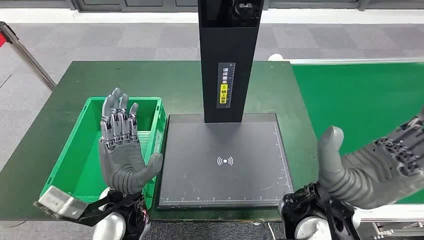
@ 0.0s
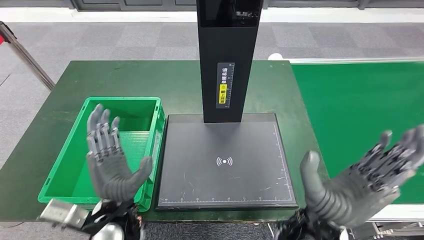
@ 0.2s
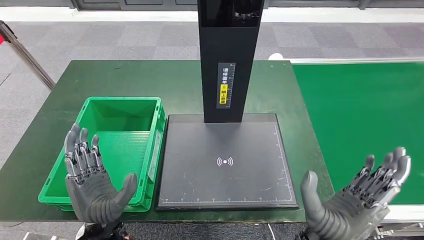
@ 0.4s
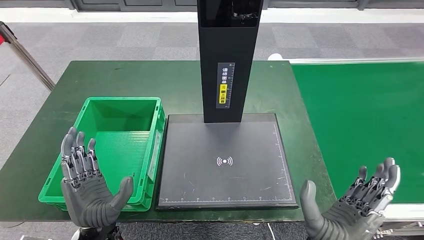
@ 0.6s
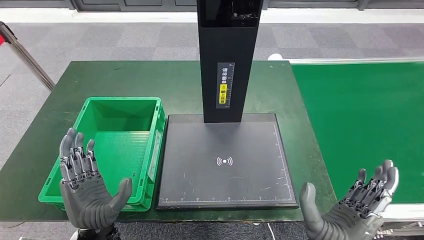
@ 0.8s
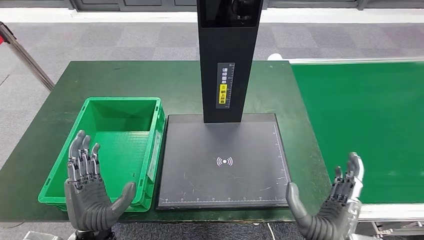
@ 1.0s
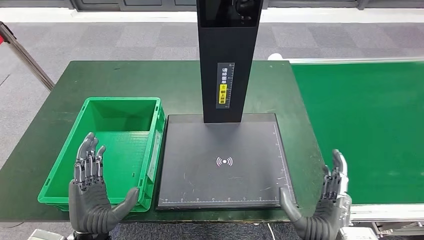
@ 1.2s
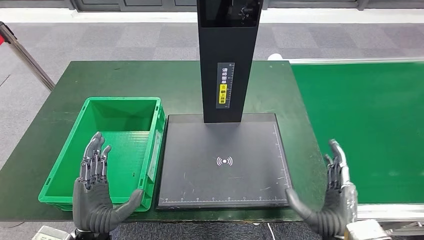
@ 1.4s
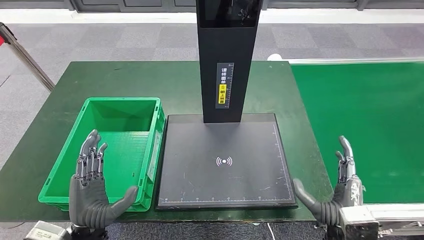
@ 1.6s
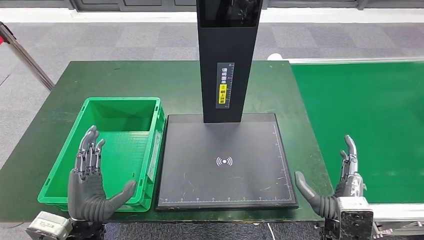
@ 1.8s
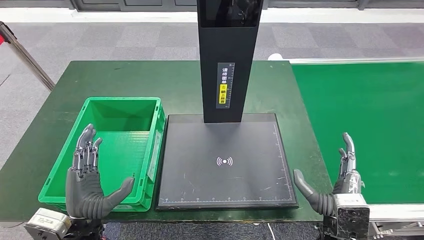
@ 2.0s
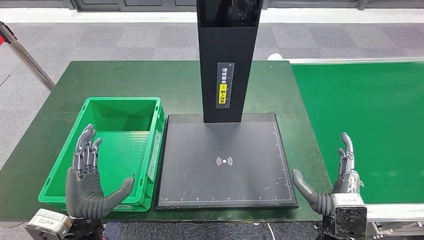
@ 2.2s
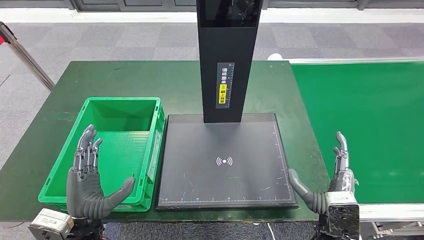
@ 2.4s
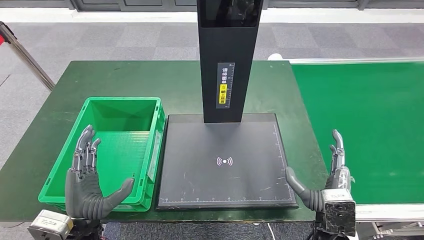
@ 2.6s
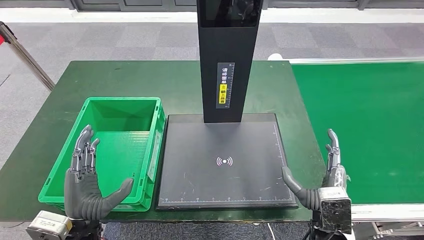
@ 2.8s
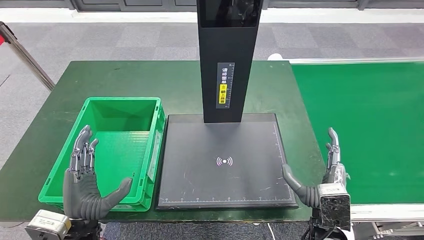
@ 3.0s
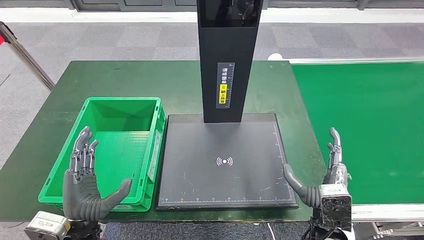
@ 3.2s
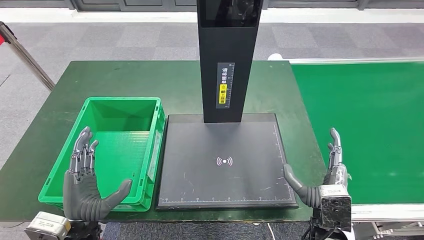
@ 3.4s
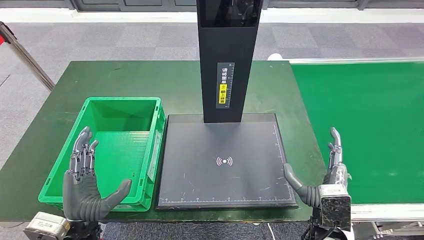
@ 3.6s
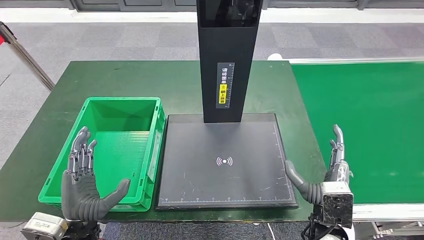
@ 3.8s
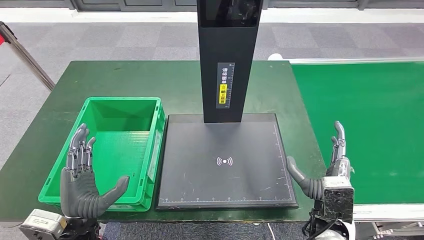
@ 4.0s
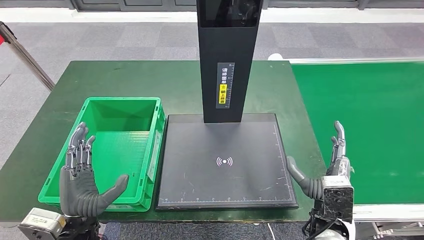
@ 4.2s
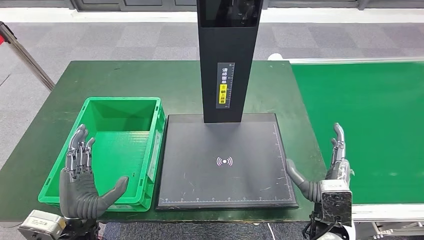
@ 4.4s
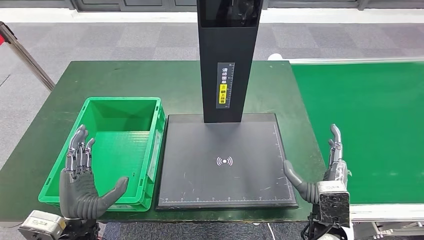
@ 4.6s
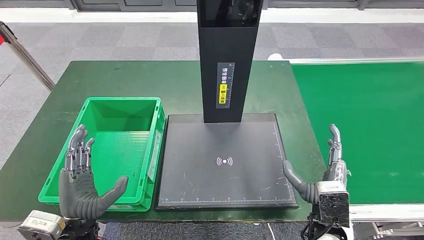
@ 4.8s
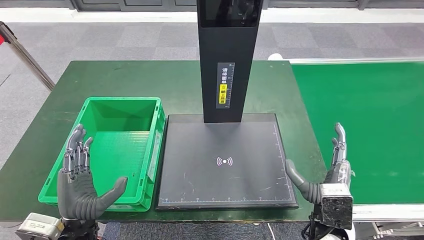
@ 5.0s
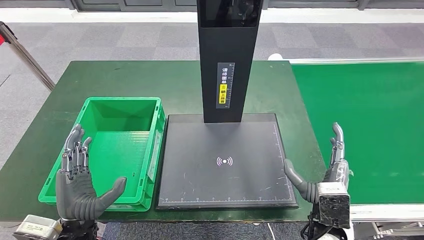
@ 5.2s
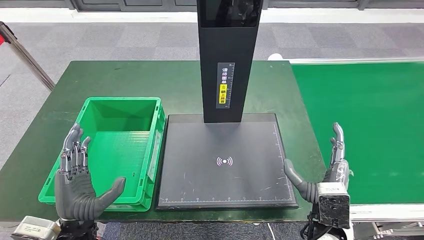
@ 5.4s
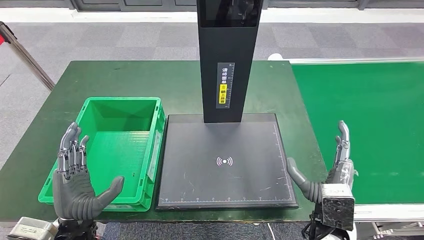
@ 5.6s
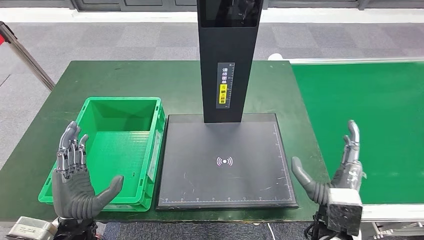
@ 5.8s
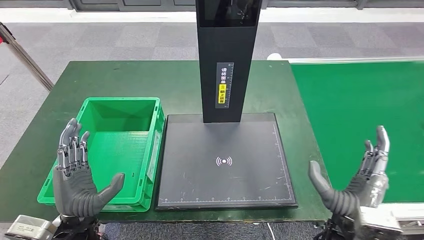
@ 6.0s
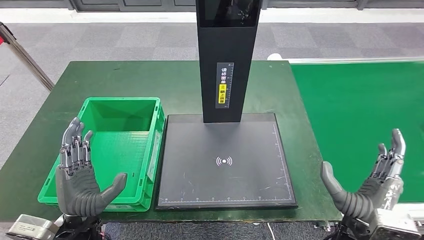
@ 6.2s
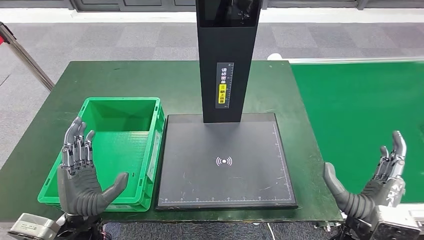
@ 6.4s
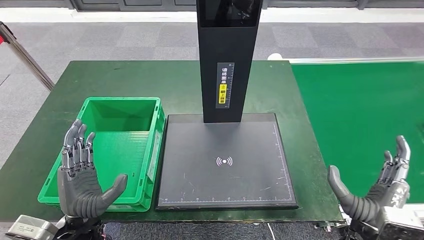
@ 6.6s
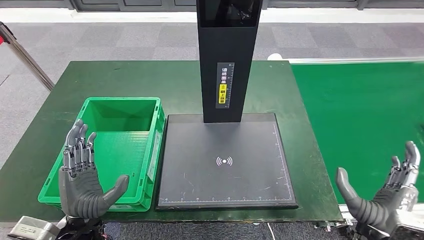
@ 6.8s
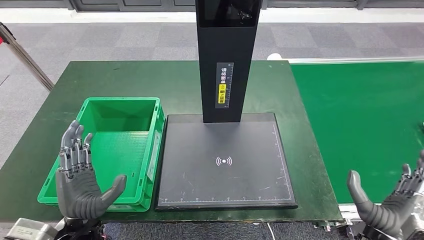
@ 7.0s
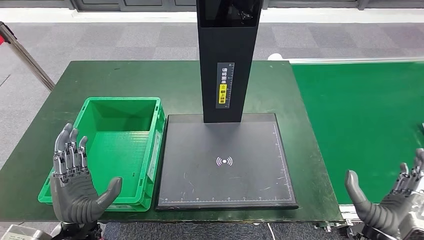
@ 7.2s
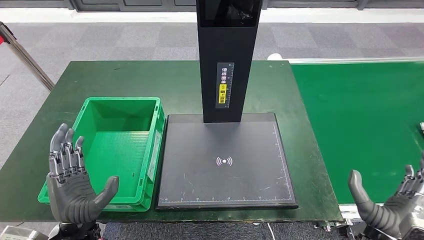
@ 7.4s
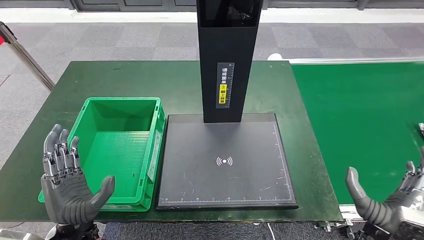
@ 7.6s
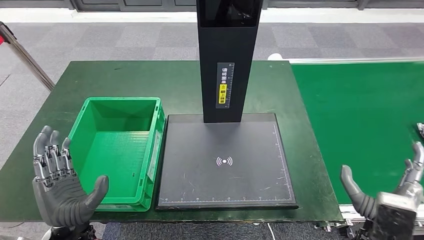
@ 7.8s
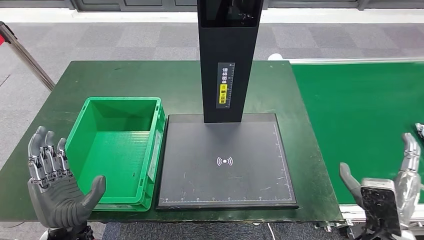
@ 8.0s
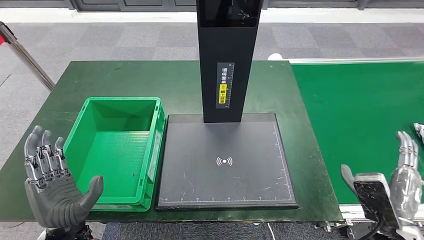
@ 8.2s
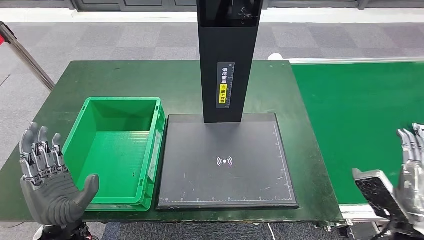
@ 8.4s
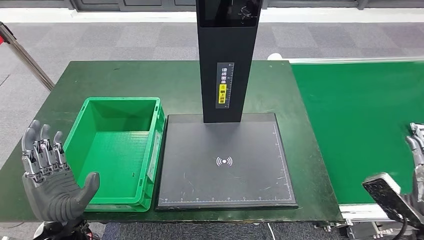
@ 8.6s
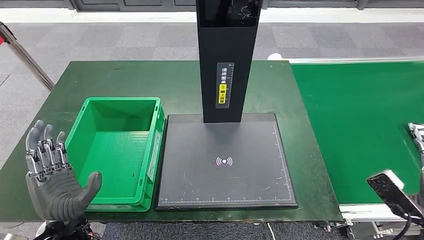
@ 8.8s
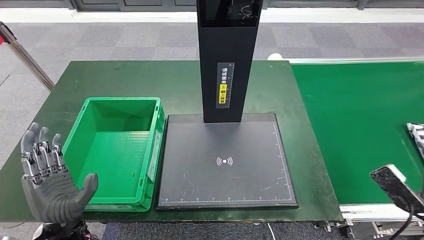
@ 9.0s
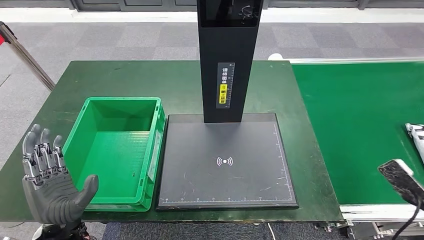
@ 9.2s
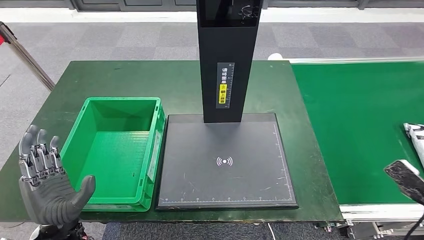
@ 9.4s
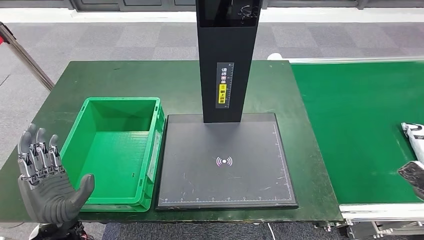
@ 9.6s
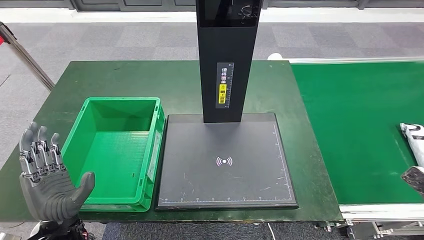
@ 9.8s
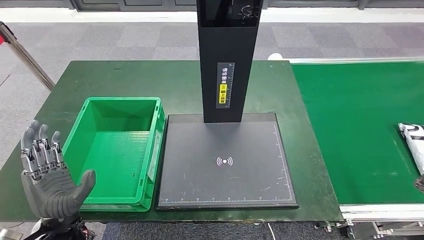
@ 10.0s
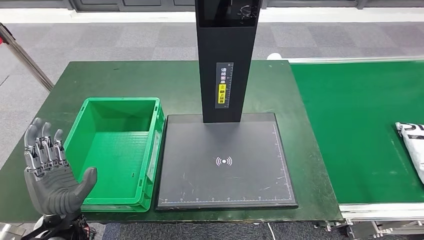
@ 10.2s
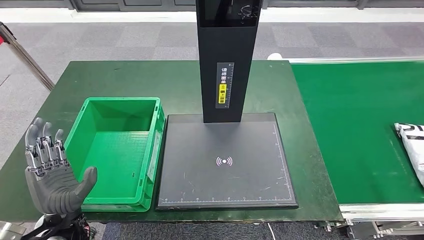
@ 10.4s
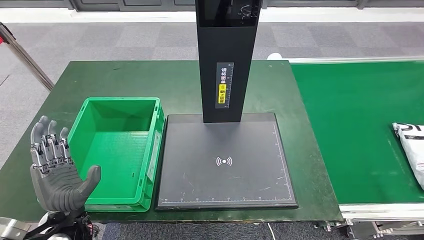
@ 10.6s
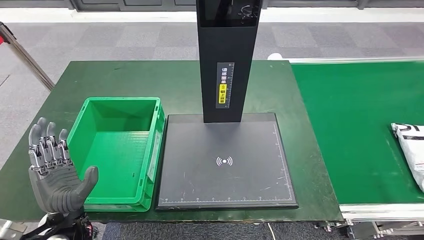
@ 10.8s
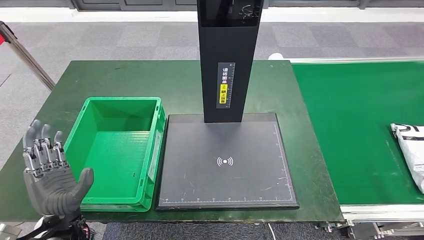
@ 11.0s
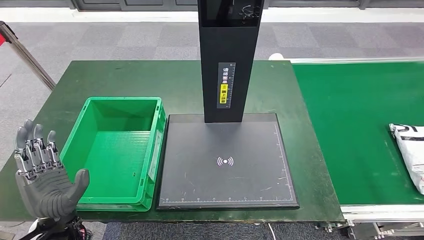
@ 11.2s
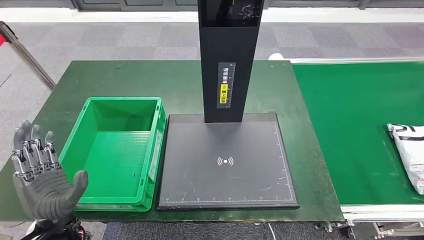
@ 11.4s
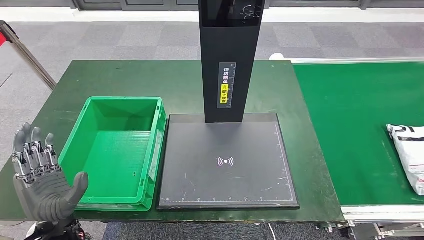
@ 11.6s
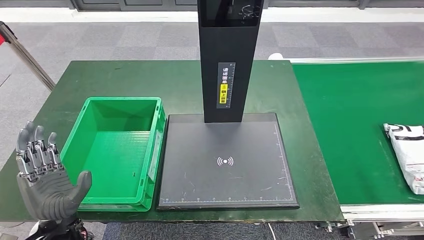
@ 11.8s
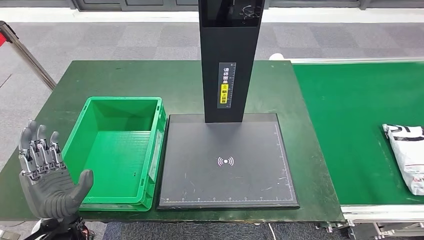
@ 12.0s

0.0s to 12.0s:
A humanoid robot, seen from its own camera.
1.6s to 6.0s: The hands move only a little.
6.0s to 7.6s: The right hand ends up roughly 5 cm from where it was.
7.6s to 9.0s: The right hand travels to the right by about 15 cm.
9.0s to 10.4s: The right hand moves to the right, about 15 cm.
10.4s to 12.0s: There are only small adjustments of the hands.

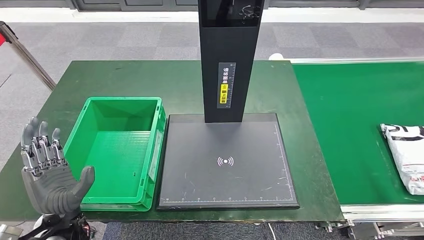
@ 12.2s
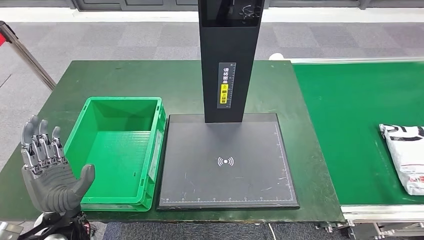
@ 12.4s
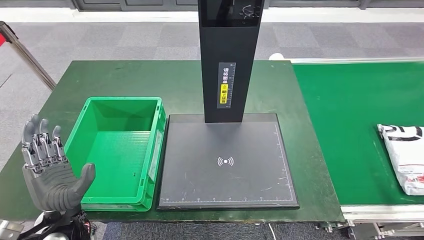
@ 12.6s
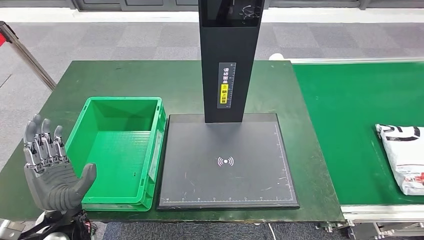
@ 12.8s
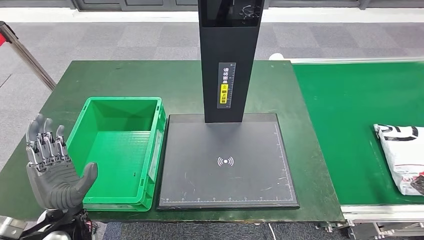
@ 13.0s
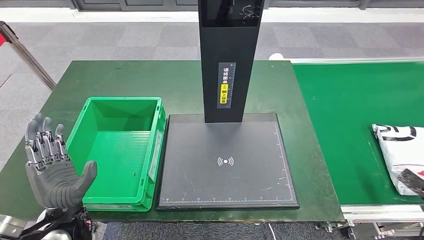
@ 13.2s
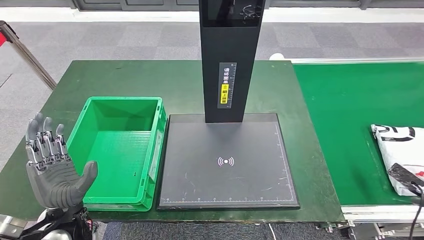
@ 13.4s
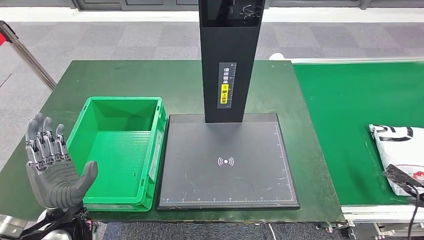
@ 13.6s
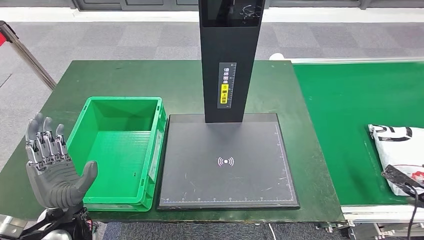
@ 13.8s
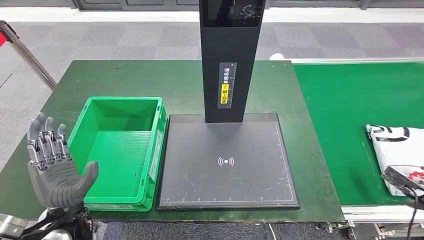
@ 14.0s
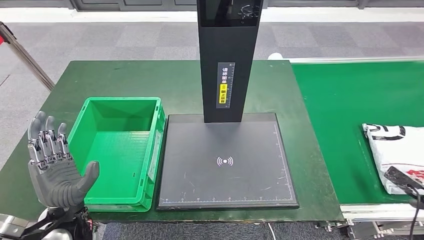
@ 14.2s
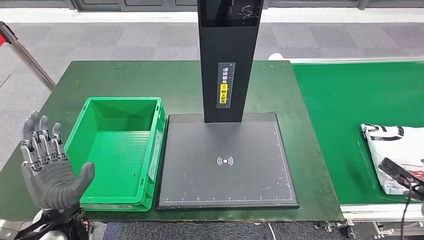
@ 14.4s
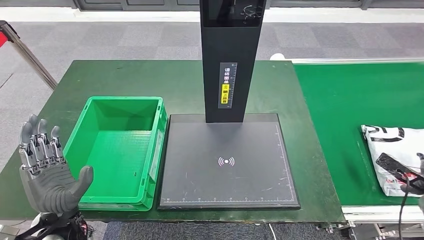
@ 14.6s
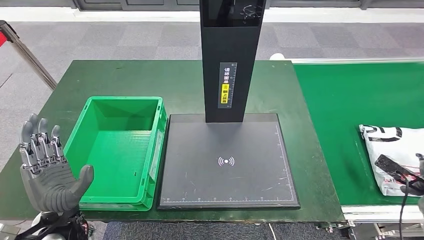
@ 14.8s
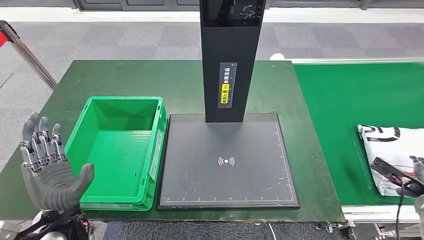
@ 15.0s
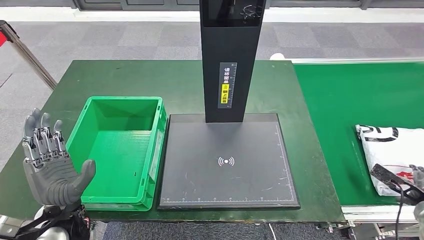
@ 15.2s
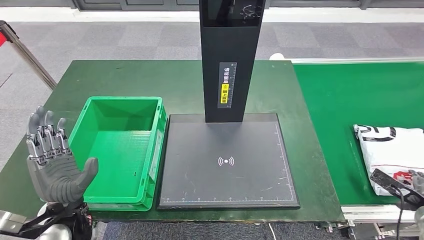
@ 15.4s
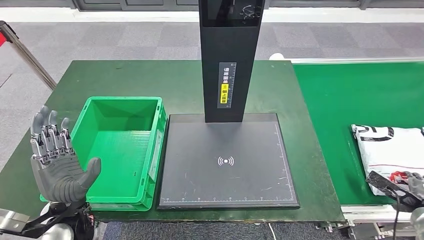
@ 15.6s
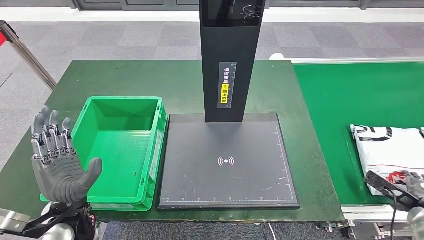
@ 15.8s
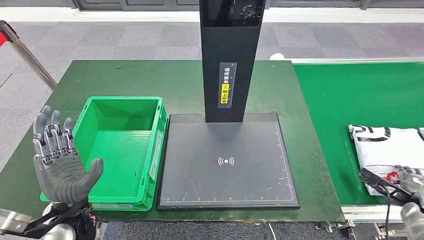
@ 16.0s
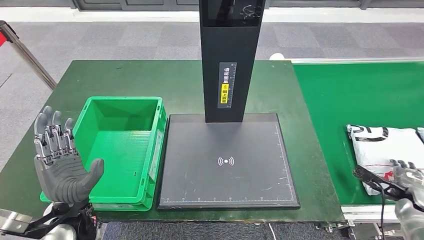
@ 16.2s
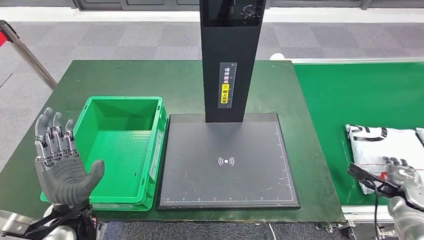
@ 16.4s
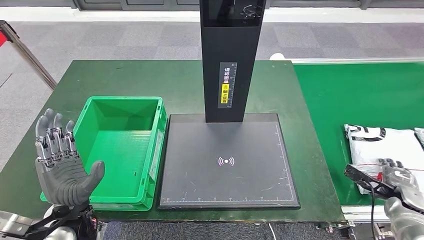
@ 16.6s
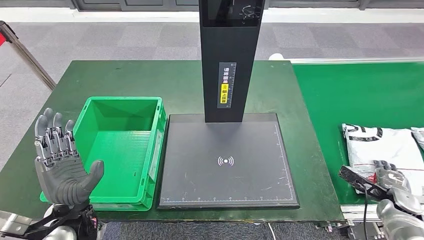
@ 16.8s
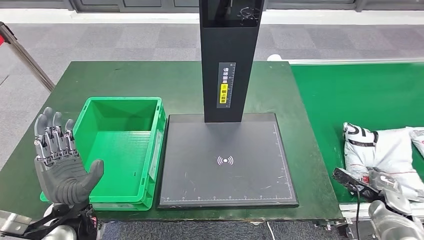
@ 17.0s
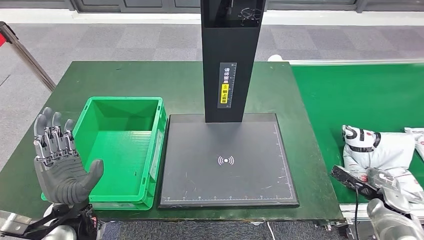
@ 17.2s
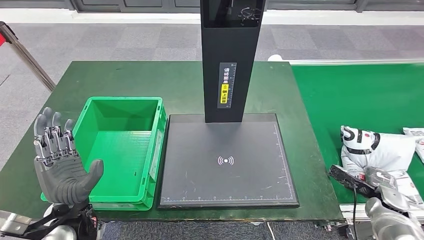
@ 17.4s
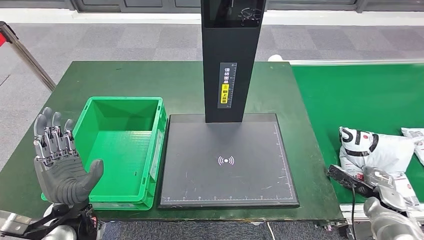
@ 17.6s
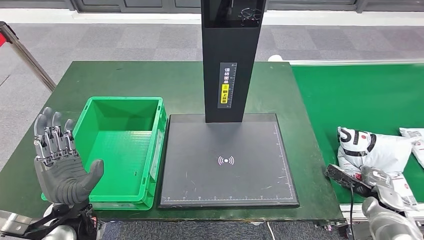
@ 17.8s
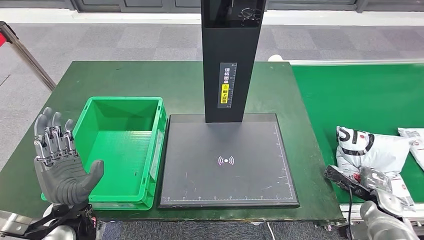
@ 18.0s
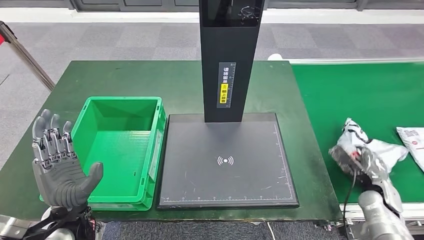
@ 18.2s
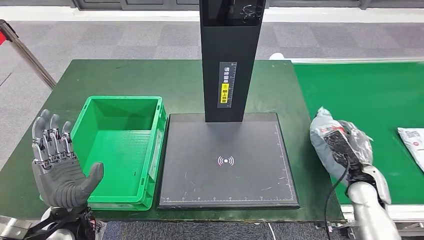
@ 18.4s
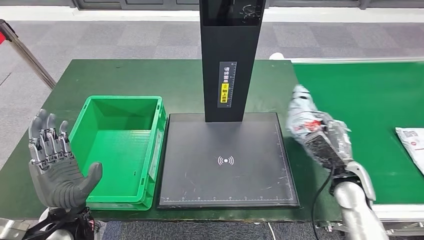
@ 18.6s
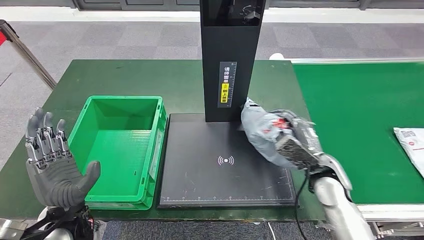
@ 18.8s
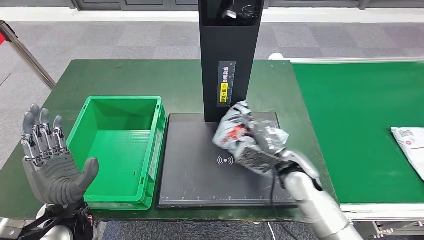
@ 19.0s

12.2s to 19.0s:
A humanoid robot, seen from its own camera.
12.2s to 13.6s: The right hand is displaced forward by about 10 cm.
13.6s to 15.0s: There are only small adjustments of the hands.
15.0s to 16.2s: There are only small adjustments of the hands.
16.2s to 17.6s: The right hand moves to the left, some 5 cm.
